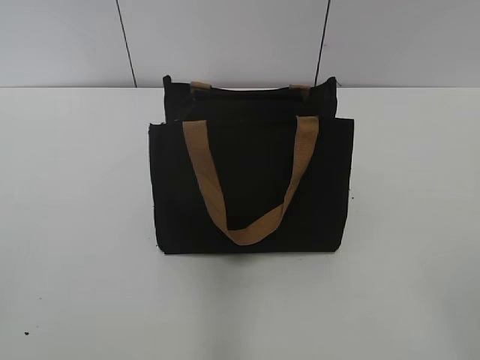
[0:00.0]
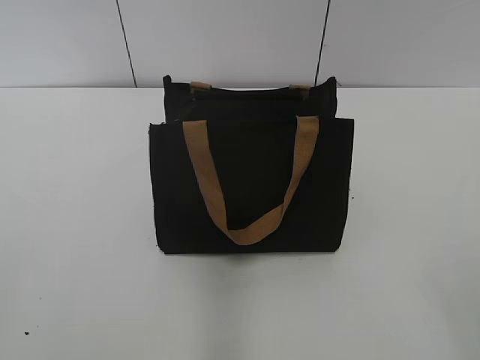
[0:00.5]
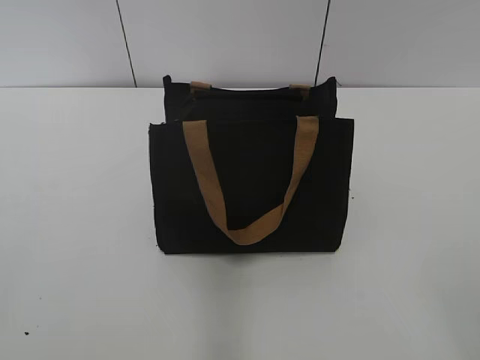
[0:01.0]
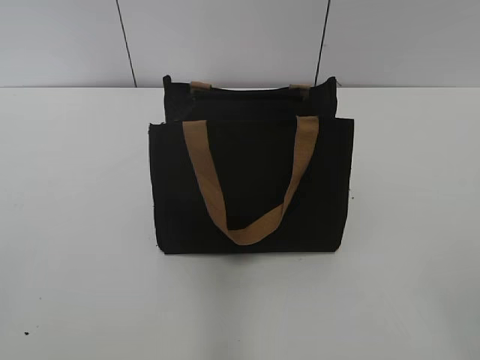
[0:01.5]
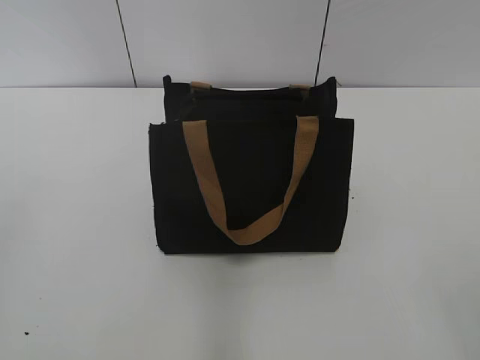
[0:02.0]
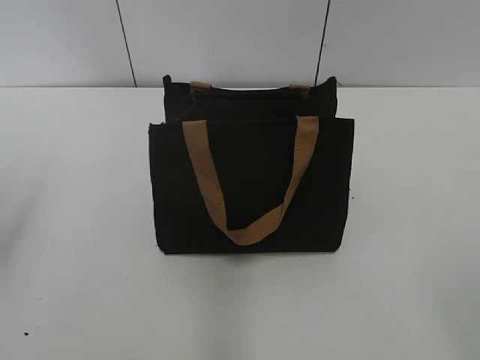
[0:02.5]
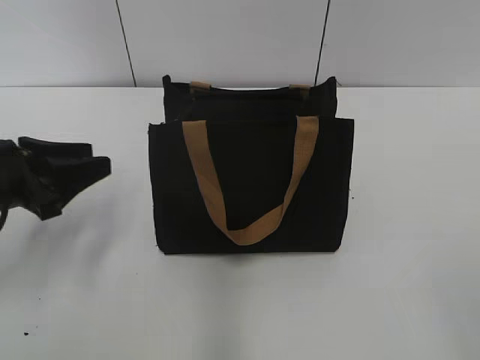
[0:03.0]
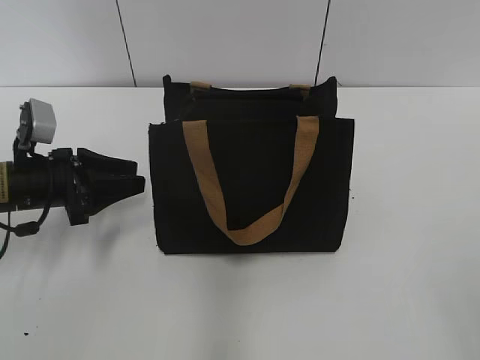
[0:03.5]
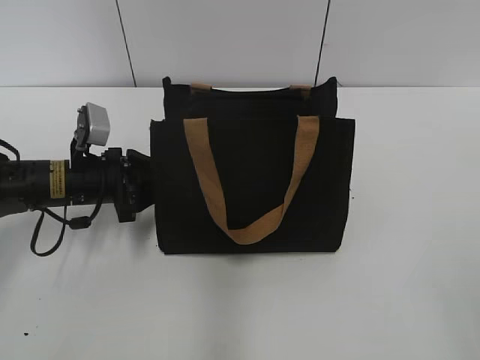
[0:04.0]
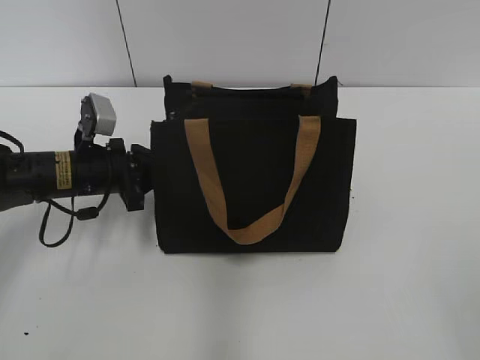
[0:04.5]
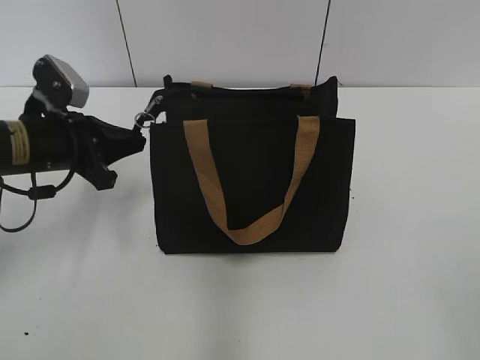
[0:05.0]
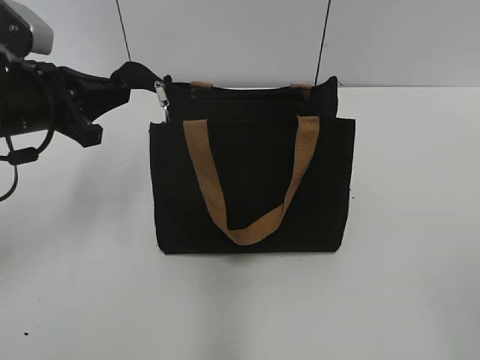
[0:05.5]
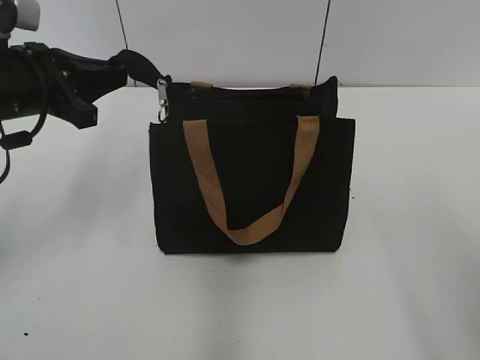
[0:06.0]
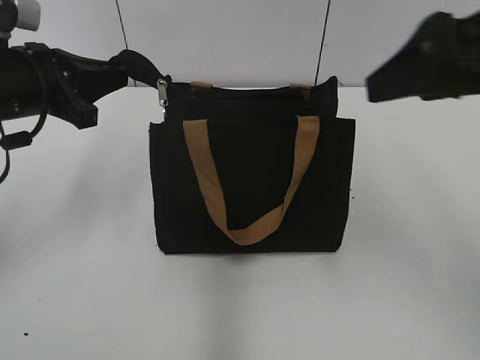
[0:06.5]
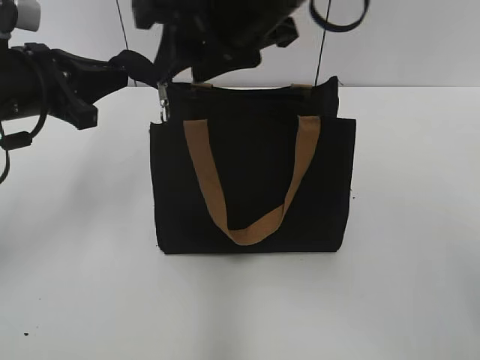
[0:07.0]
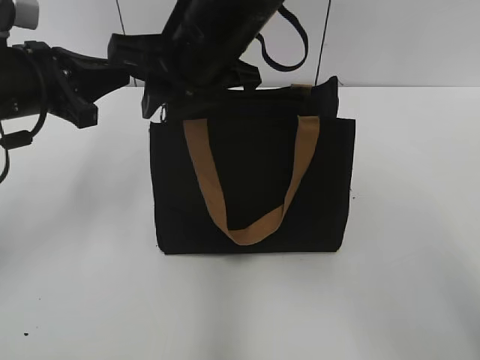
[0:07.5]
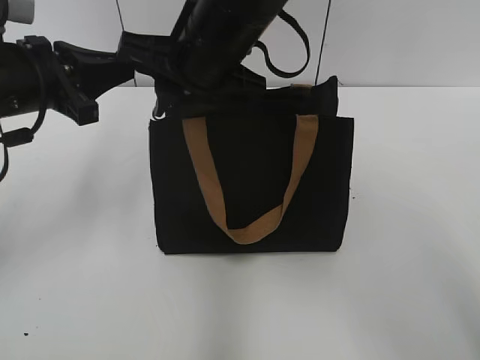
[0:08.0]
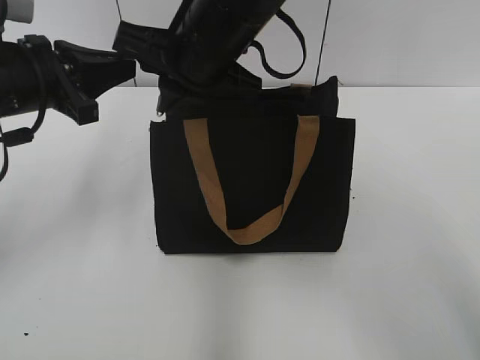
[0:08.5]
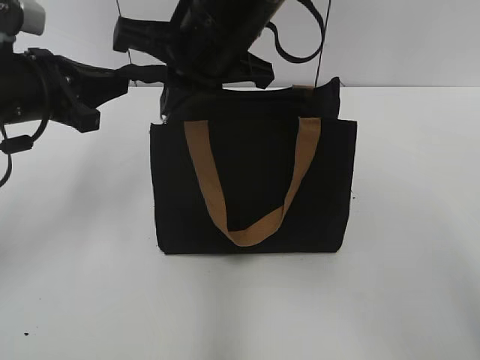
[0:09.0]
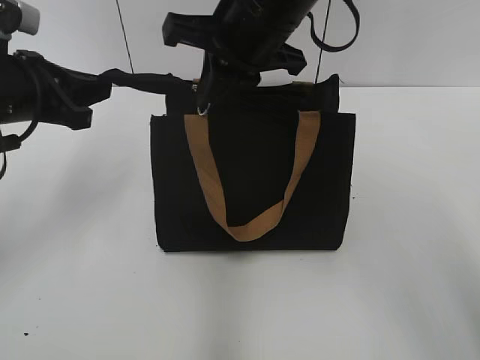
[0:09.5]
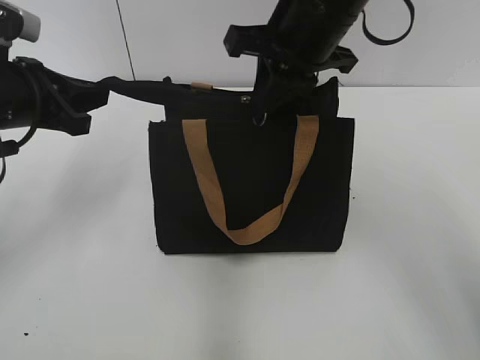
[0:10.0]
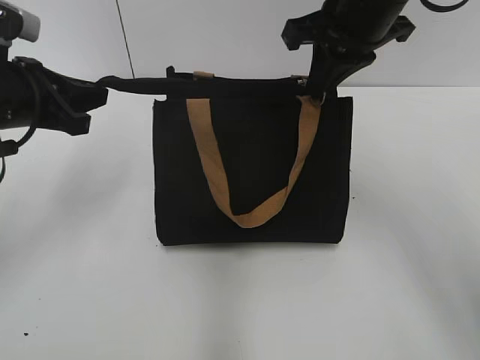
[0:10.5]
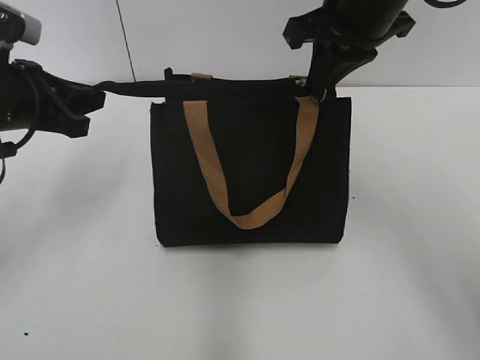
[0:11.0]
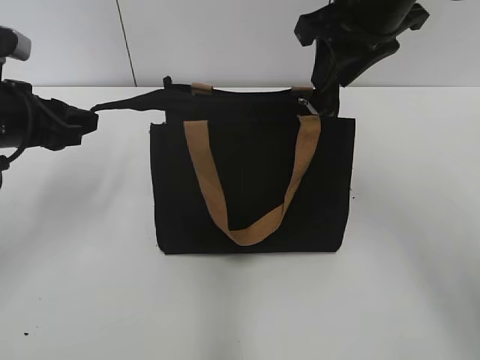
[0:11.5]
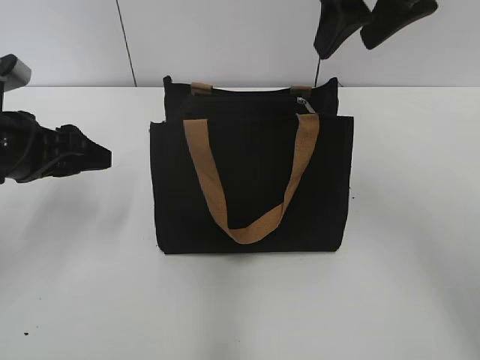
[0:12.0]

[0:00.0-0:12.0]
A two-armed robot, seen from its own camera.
Step, 0:00.0 to 0:11.0: Zip up the bag with your right hand.
0:02.0 to 0:04.0: The left gripper is displaced forward, downward and to the right by about 40 cm, and closes its fingers.
0:04.0 to 0:06.0: The left gripper moves upward, roughly 15 cm, and closes up.
0:06.0 to 0:08.0: The right gripper heads to the left and forward, covering some 40 cm, and closes up.
0:08.0 to 0:10.0: The right gripper shifts about 10 cm to the right, and closes its fingers.
0:10.0 to 0:12.0: The right gripper travels to the right and upward by about 10 cm, and opens; the left gripper opens.

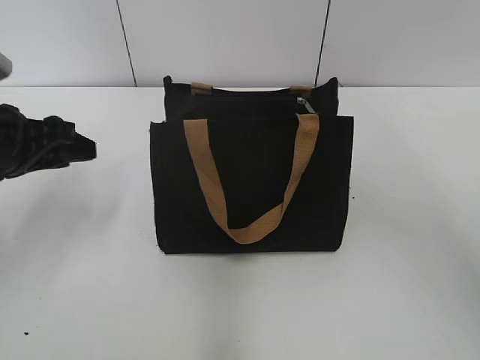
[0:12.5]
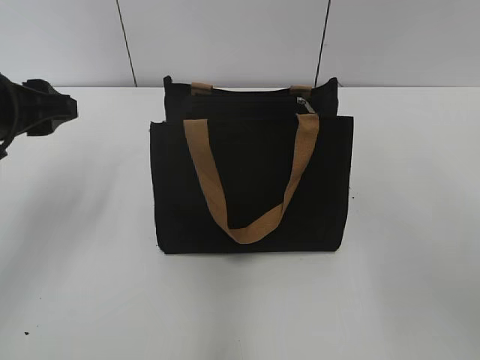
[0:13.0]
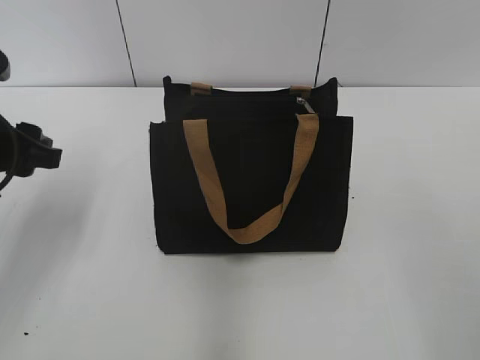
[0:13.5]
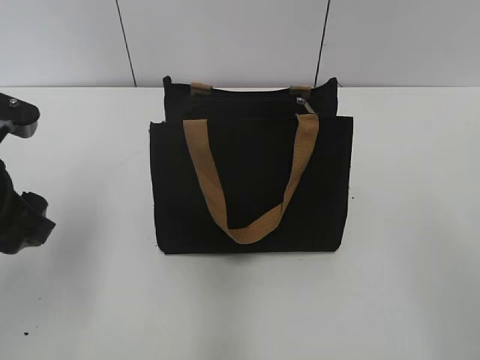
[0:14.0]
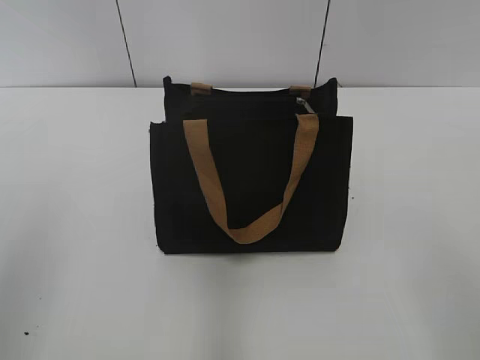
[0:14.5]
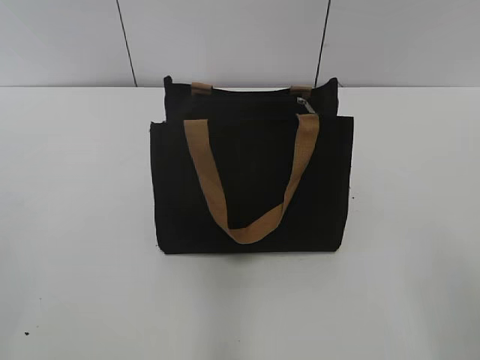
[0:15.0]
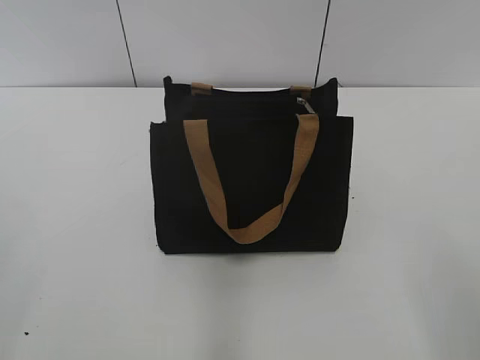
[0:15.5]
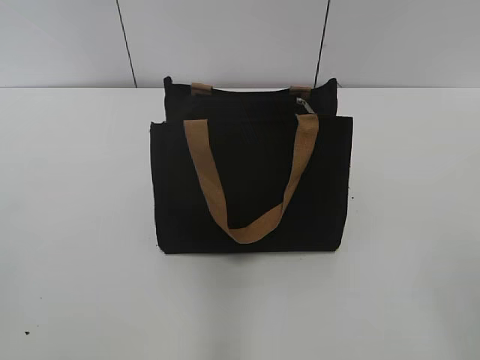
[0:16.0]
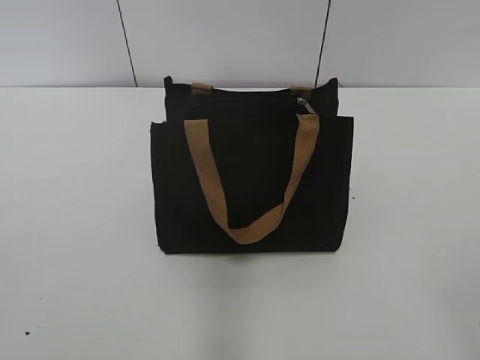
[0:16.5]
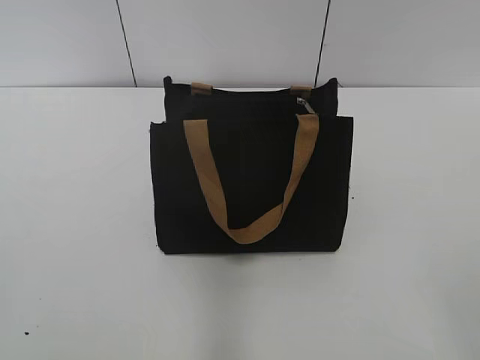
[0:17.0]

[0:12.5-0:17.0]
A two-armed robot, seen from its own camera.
0:12.5 to 0:14.5: The left gripper travels backward and upward by roughly 20 cm; the right gripper moves backward, downward and to the right, about 30 cm.
0:14.5 to 0:17.0: The left gripper goes some 15 cm backward and to the left, and closes up.
